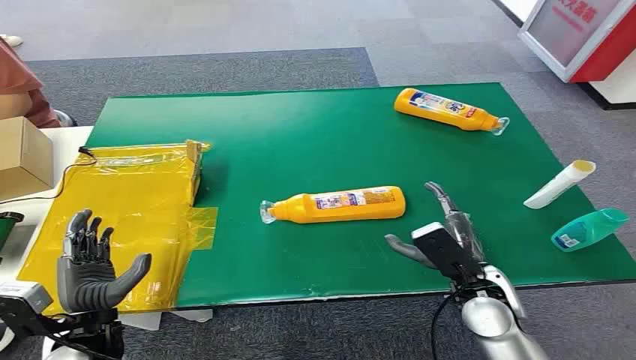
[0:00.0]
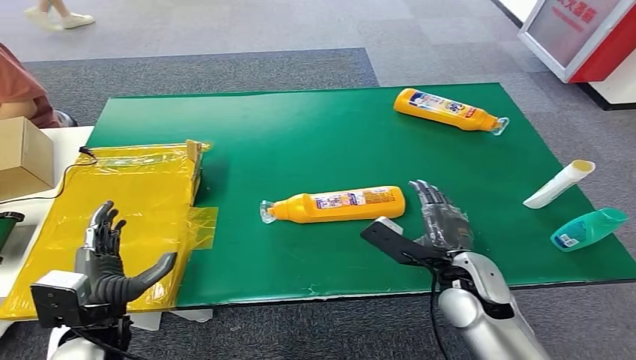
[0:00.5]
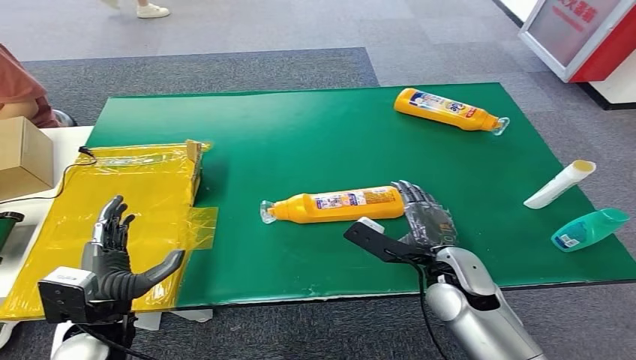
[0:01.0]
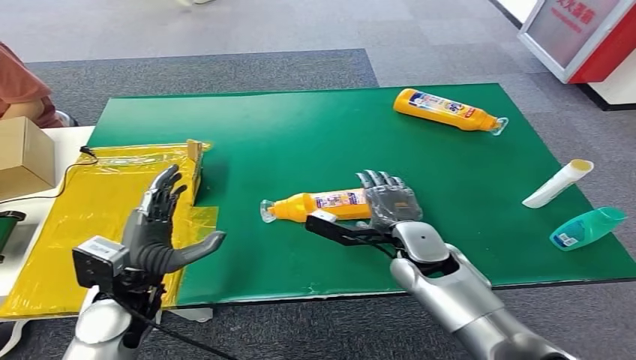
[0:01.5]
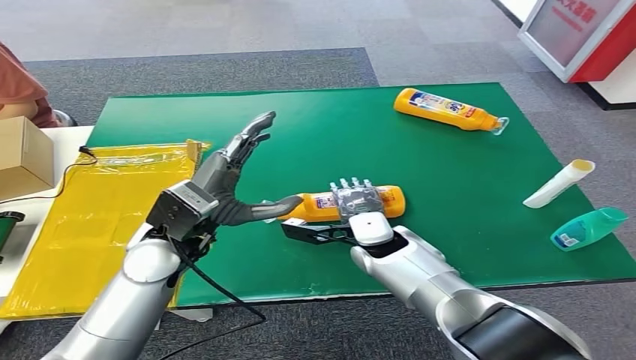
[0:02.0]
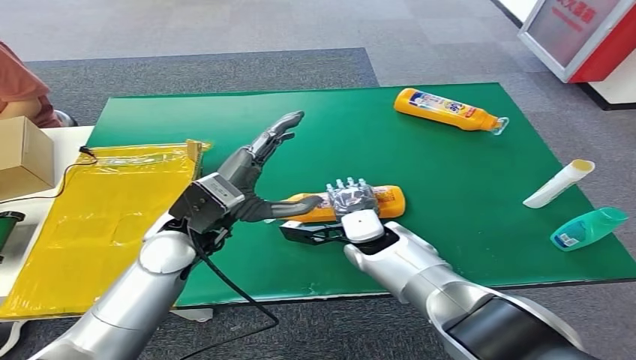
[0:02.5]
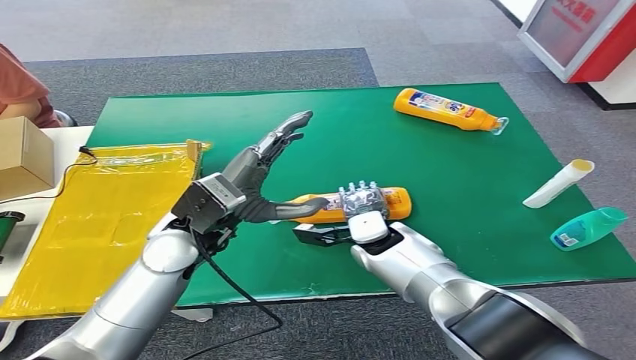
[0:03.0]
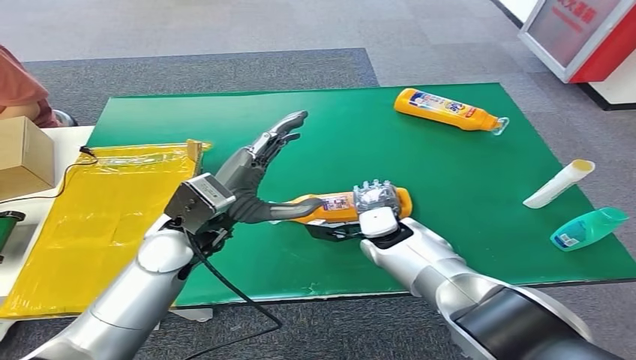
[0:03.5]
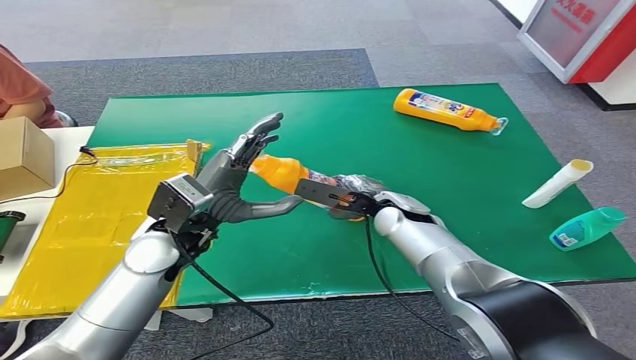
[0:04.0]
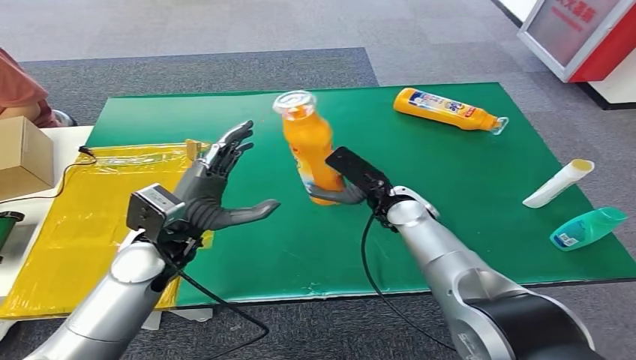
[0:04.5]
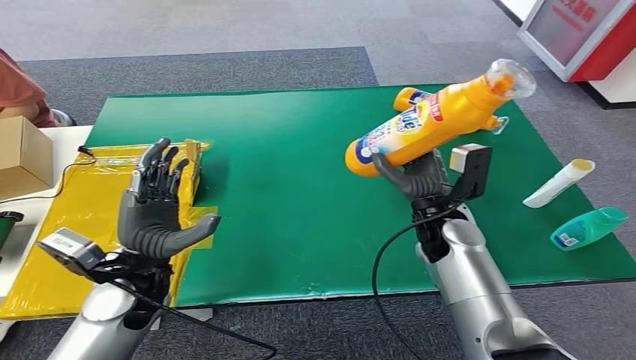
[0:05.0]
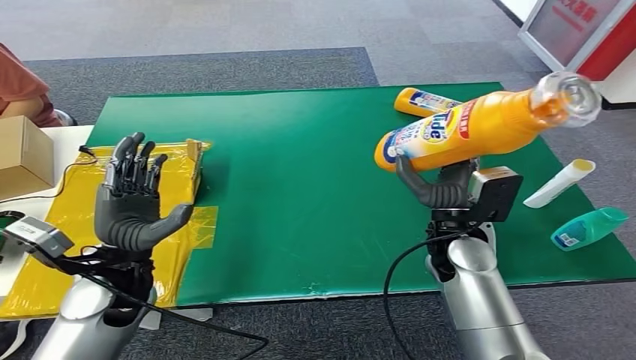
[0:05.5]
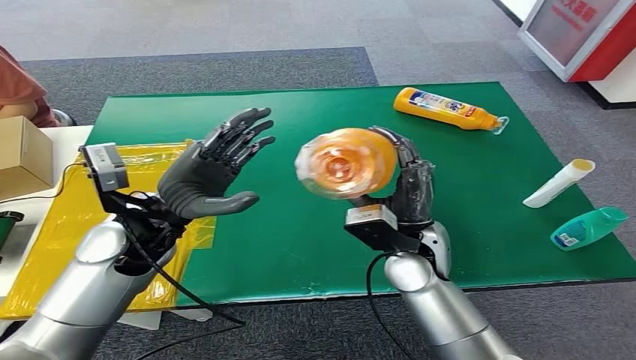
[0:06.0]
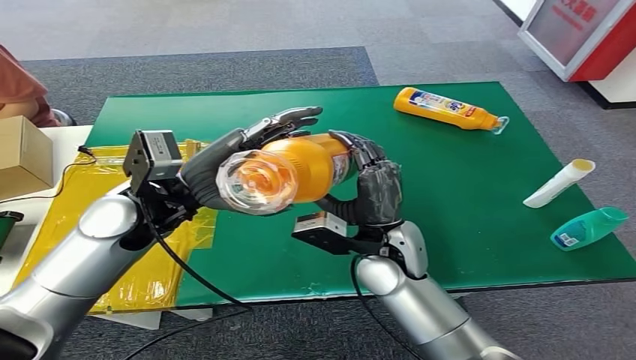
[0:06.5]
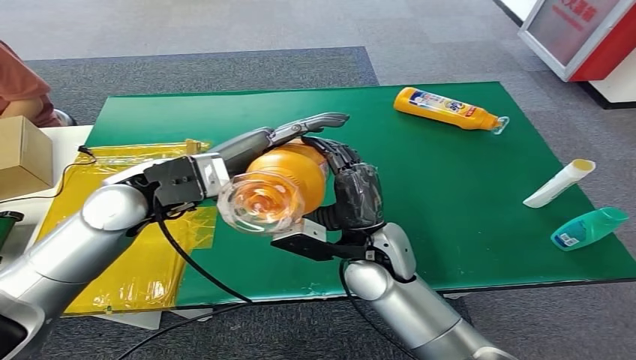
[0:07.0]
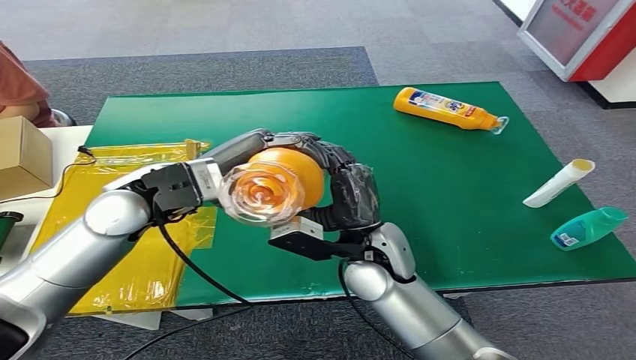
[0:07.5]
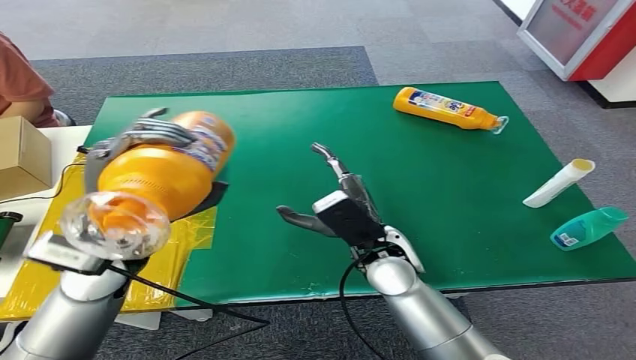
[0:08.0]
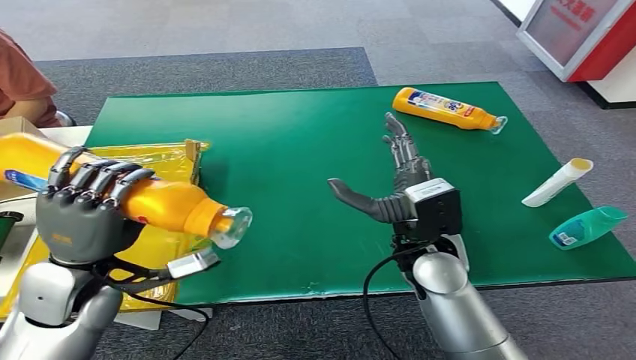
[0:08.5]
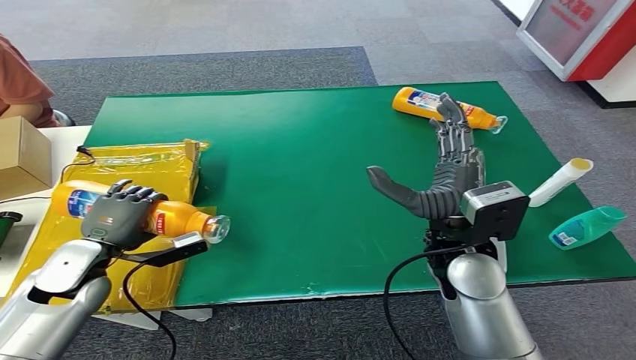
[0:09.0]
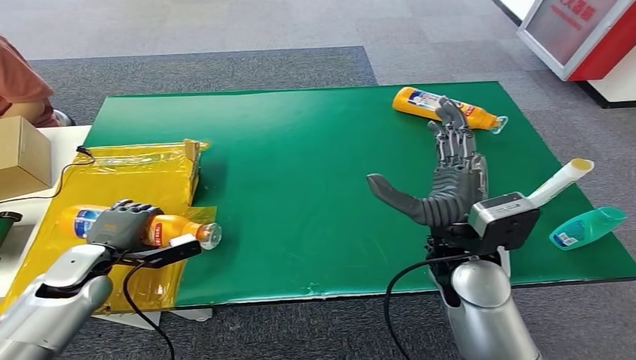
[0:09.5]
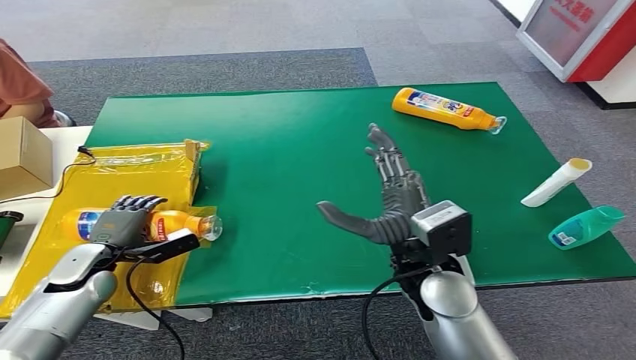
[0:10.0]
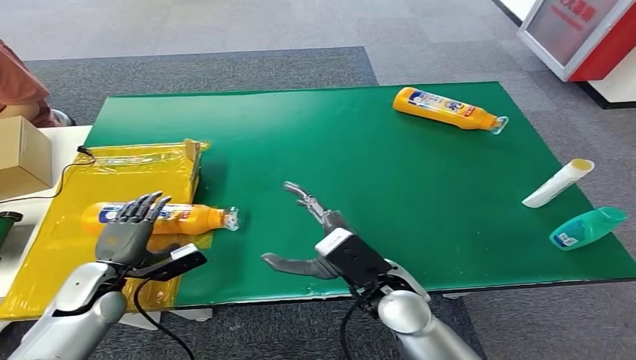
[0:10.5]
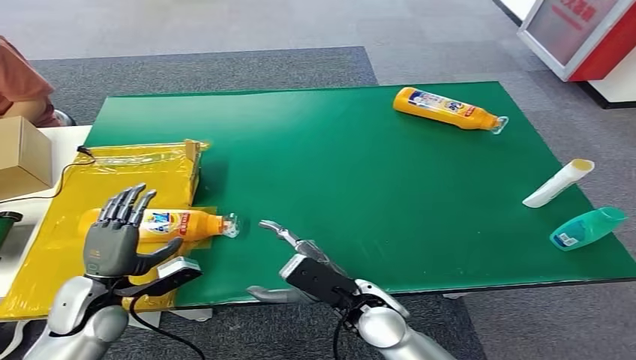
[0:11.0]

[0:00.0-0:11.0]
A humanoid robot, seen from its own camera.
Step, 0:00.0 to 0:04.5: Pick up the bottle from the table.
Step, 0:05.0 to 0:10.5: Turn the bottle to the front side.
0:02.0 to 0:03.5: The hands stay close to where they were, moving slightly.

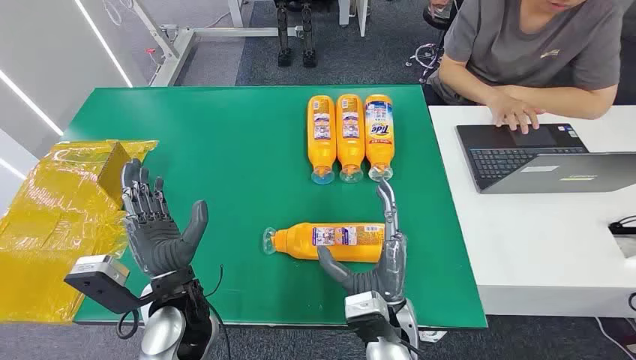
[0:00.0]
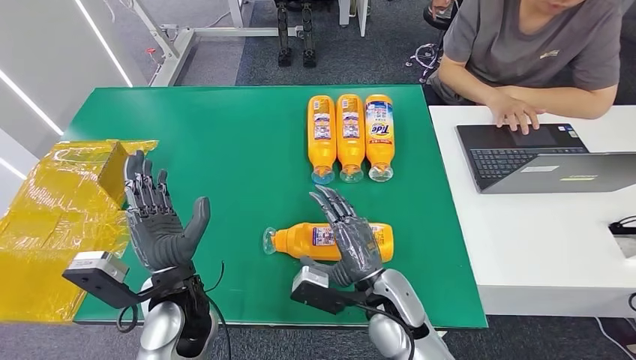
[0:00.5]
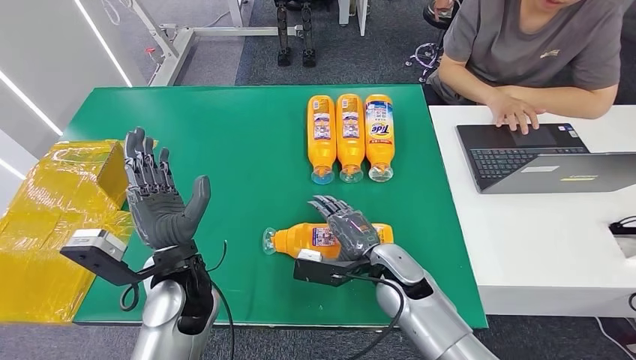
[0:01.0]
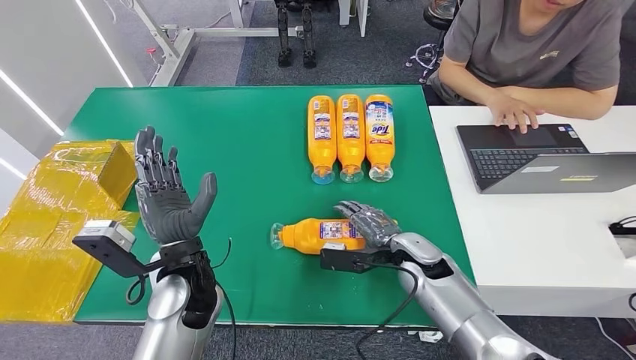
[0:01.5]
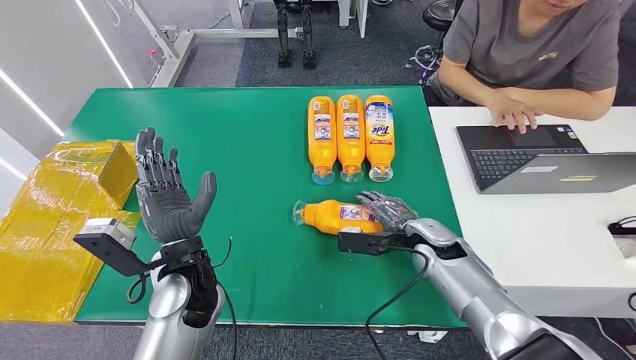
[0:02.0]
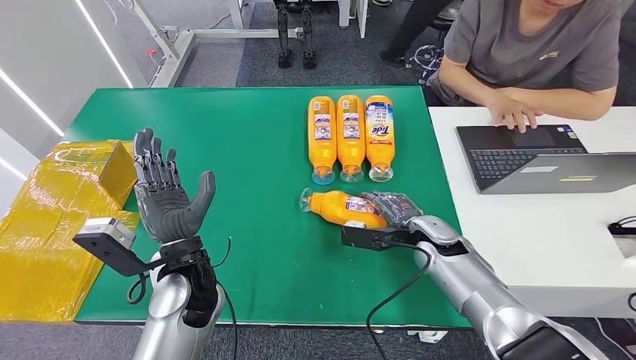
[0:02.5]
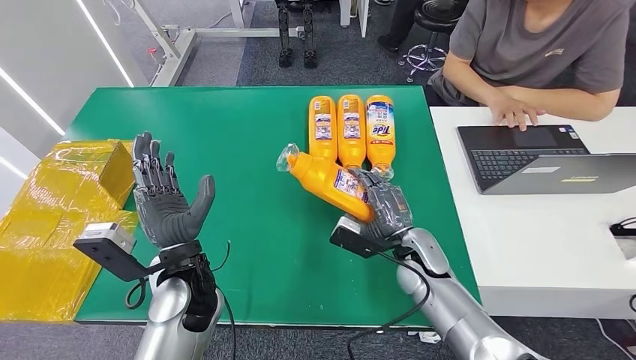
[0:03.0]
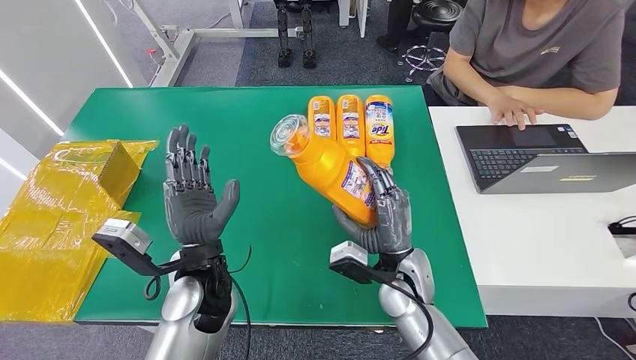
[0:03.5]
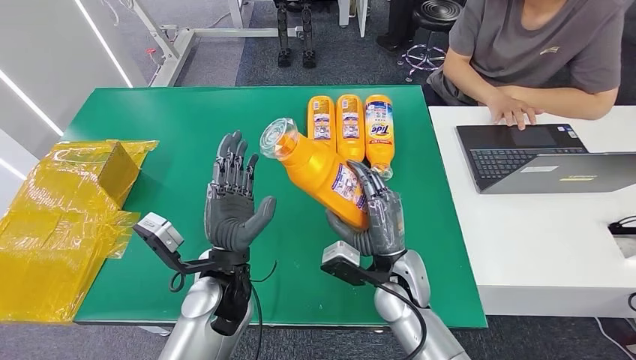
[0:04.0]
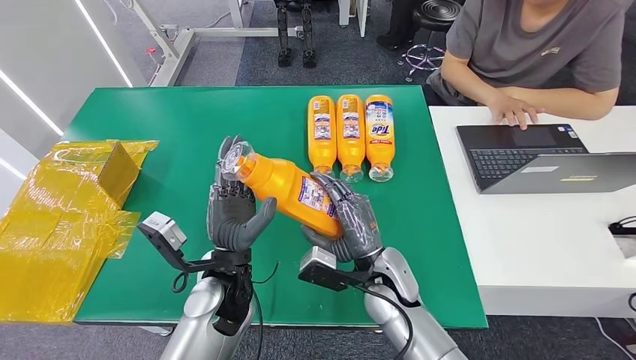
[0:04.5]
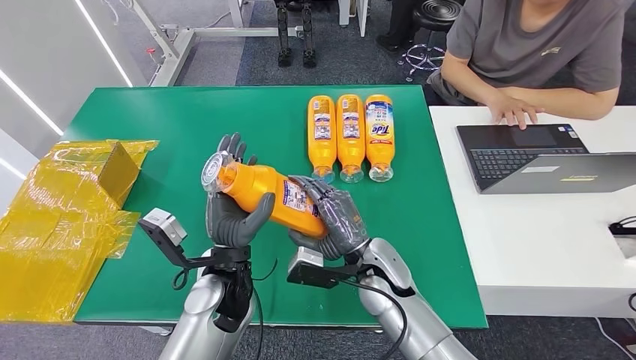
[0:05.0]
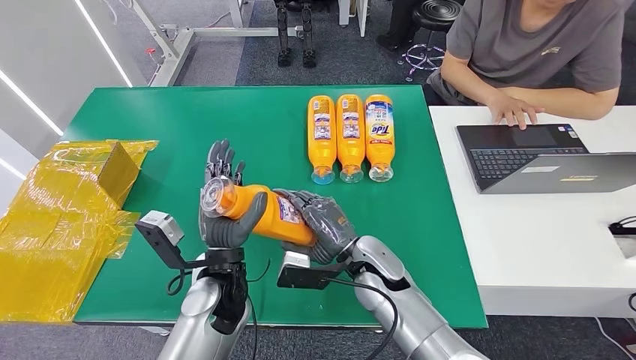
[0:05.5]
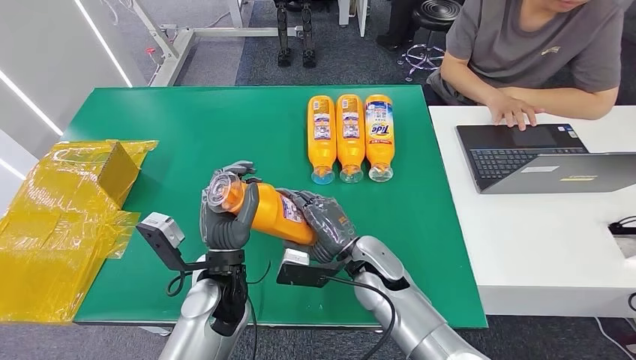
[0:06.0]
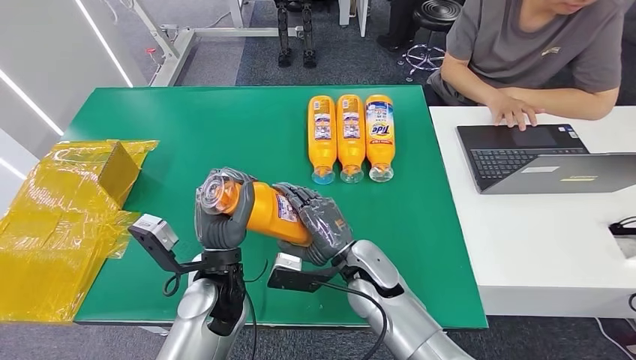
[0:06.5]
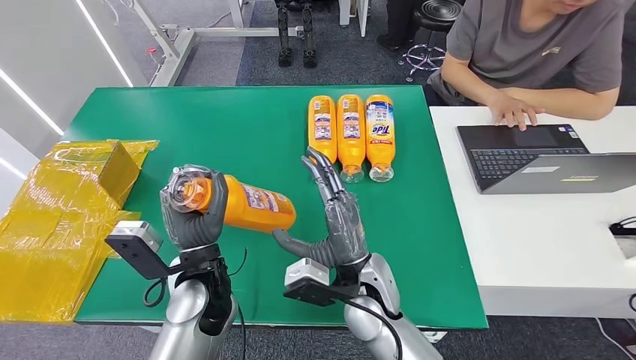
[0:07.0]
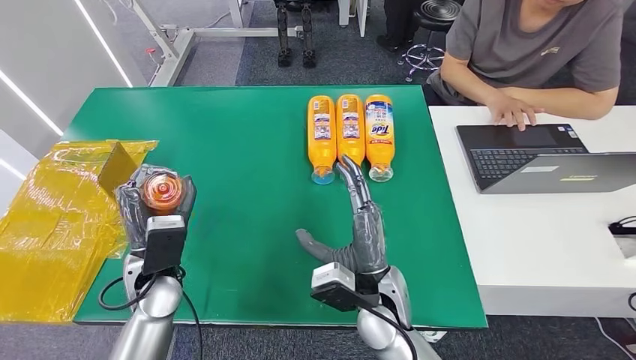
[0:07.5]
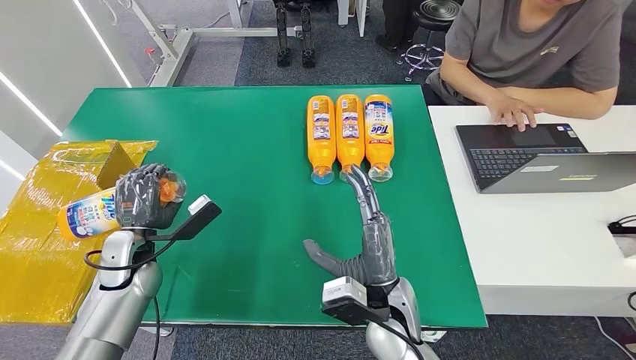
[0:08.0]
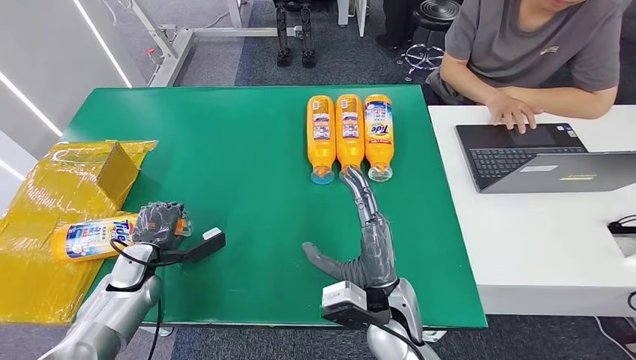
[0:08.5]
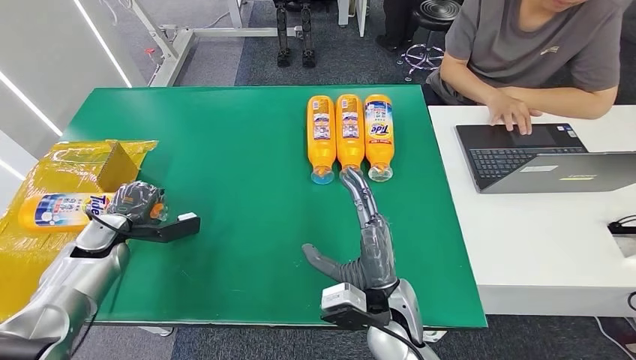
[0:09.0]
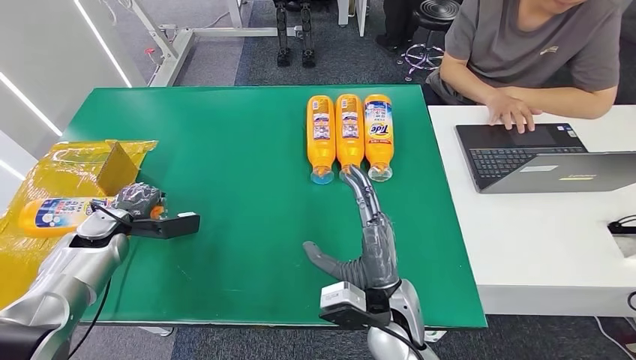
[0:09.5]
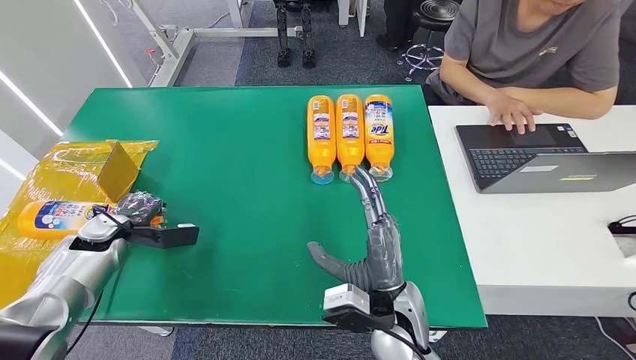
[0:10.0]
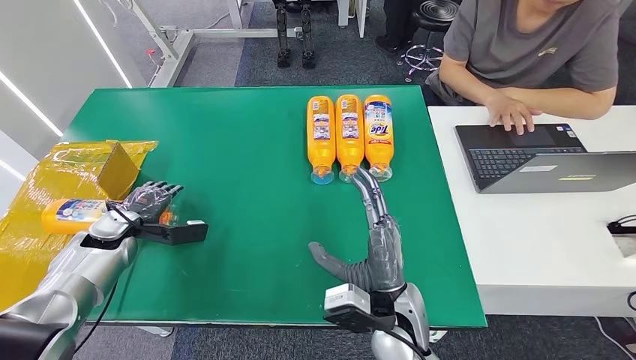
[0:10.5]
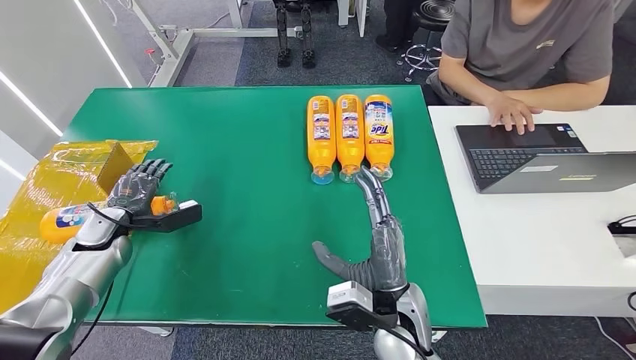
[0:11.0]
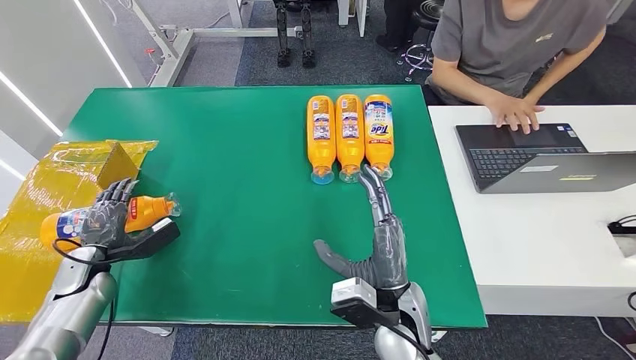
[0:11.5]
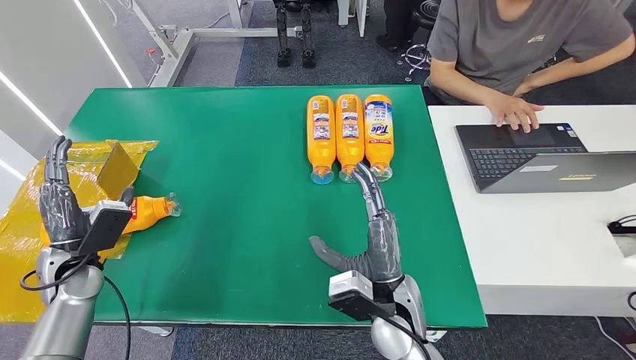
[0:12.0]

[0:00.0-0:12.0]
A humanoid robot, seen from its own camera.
Step, 0:00.0 to 0:03.5: Pick up the bottle from the table.
Step, 0:04.0 to 0:12.0: Turn the bottle to the front side.
0:06.0 to 0:08.0: The right hand goes some 10 cm backward. Meanwhile the left hand is displaced to the left by roughly 20 cm.
0:08.0 to 0:10.0: The left hand heads to the left and forward, covering approximately 10 cm.
0:10.0 to 0:12.0: The left hand moves backward, roughly 5 cm.
